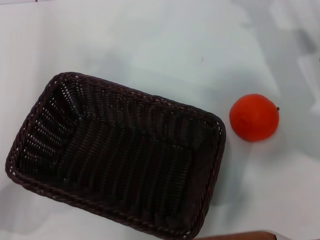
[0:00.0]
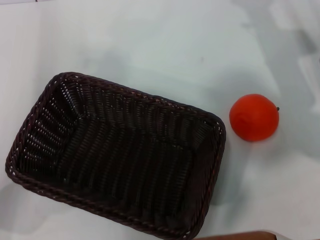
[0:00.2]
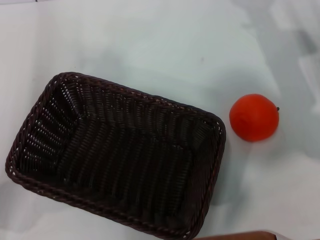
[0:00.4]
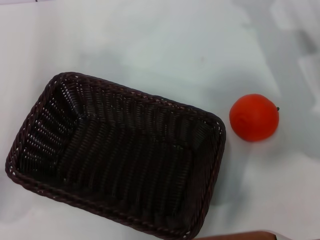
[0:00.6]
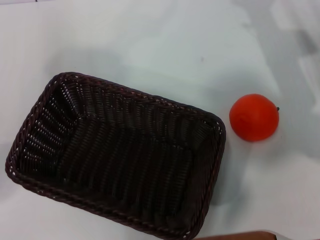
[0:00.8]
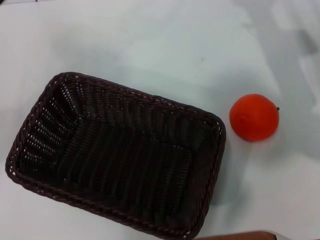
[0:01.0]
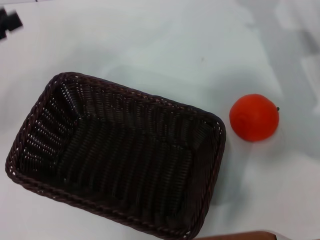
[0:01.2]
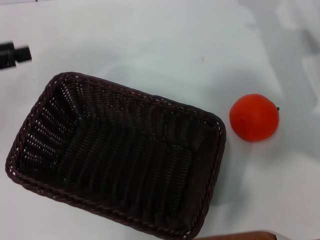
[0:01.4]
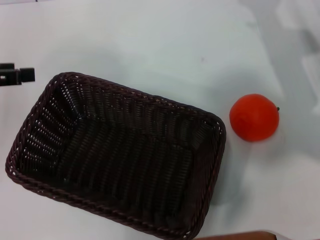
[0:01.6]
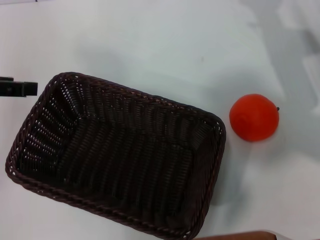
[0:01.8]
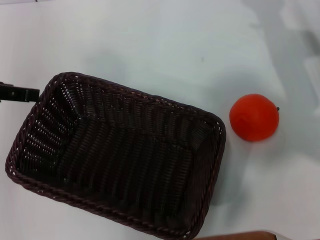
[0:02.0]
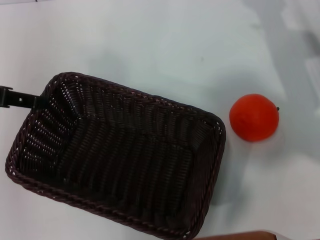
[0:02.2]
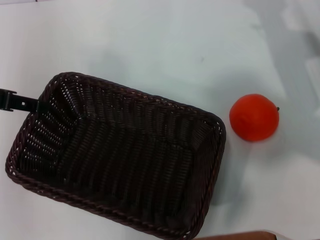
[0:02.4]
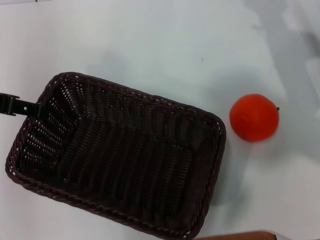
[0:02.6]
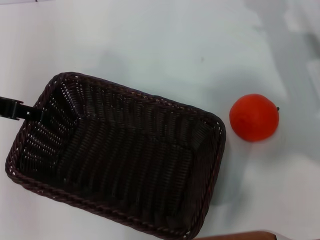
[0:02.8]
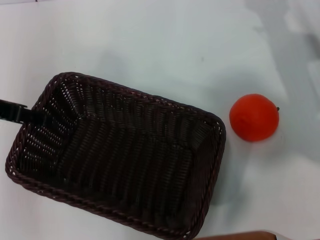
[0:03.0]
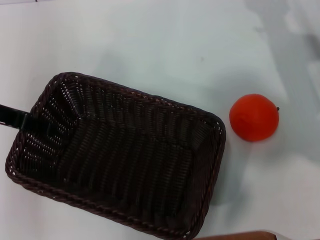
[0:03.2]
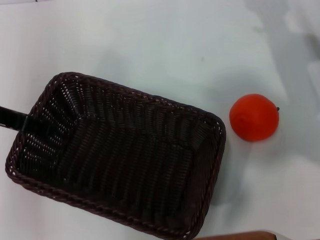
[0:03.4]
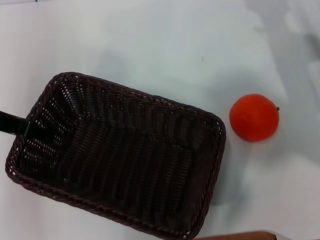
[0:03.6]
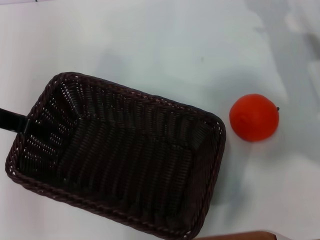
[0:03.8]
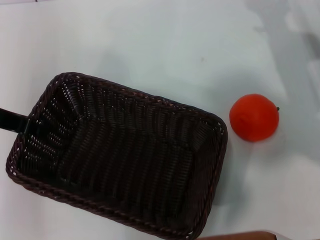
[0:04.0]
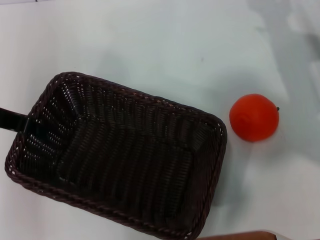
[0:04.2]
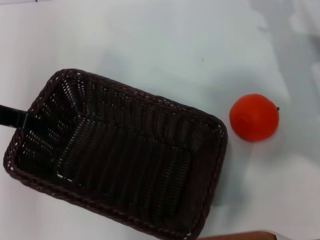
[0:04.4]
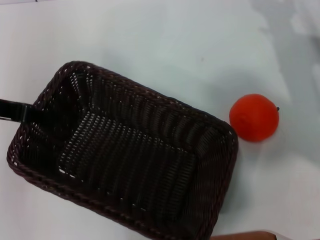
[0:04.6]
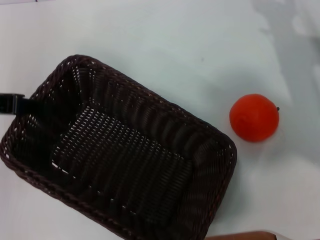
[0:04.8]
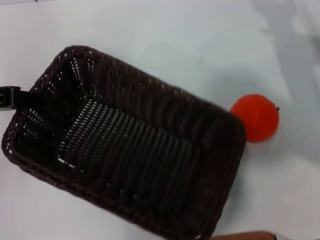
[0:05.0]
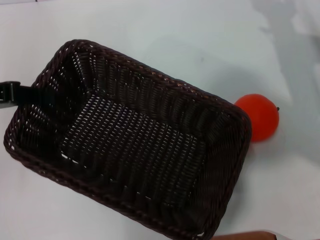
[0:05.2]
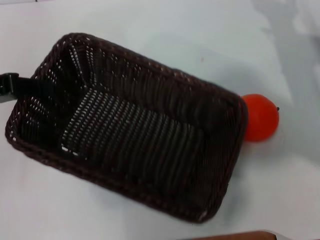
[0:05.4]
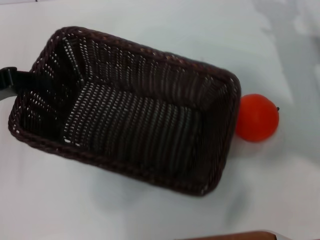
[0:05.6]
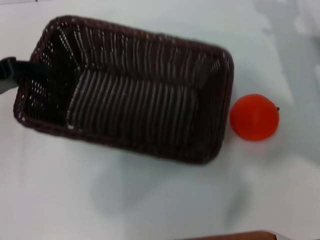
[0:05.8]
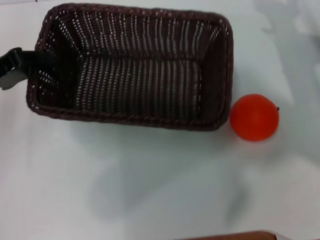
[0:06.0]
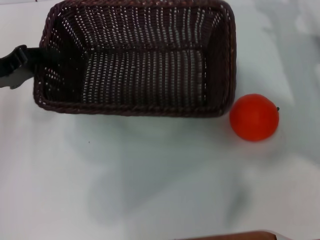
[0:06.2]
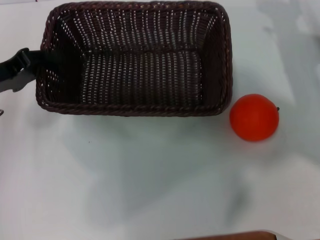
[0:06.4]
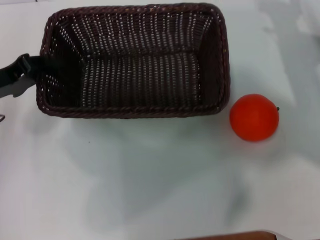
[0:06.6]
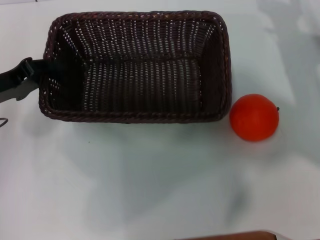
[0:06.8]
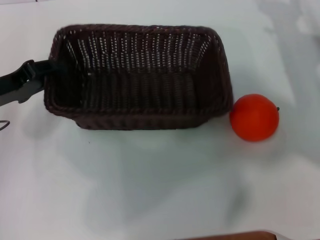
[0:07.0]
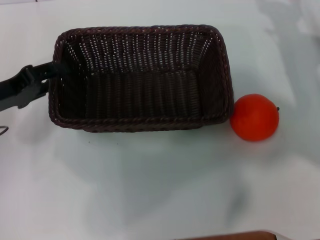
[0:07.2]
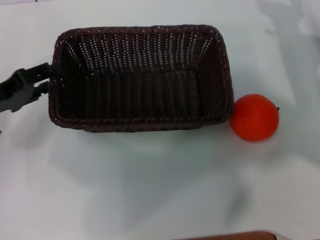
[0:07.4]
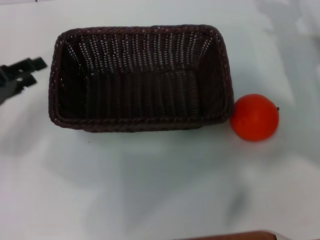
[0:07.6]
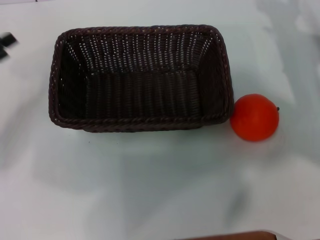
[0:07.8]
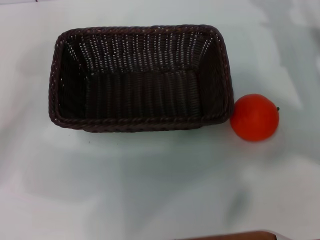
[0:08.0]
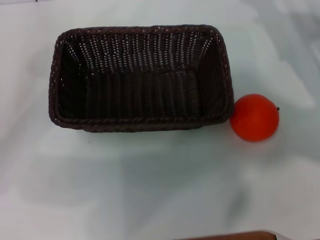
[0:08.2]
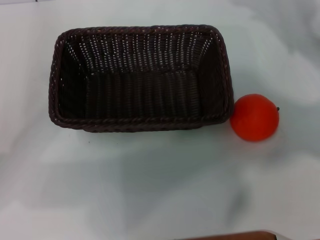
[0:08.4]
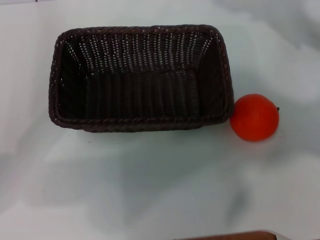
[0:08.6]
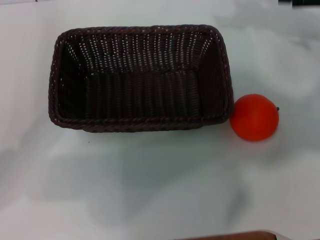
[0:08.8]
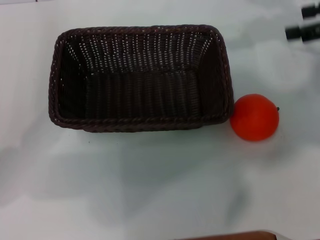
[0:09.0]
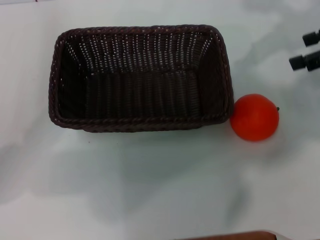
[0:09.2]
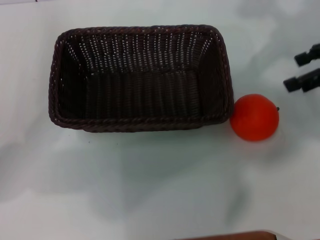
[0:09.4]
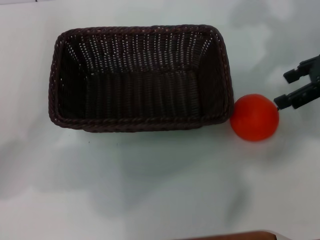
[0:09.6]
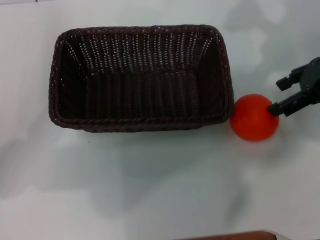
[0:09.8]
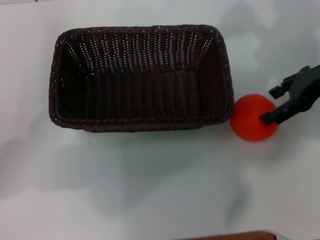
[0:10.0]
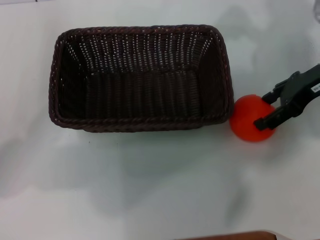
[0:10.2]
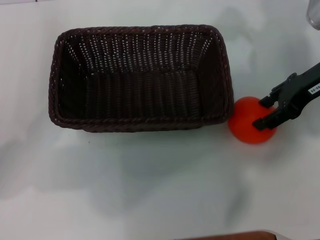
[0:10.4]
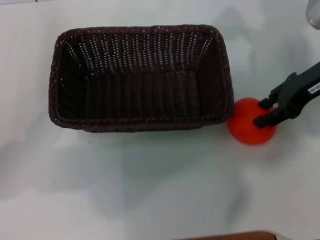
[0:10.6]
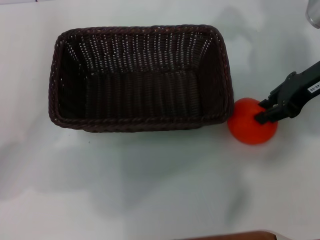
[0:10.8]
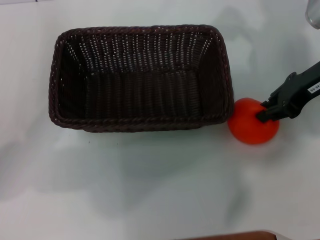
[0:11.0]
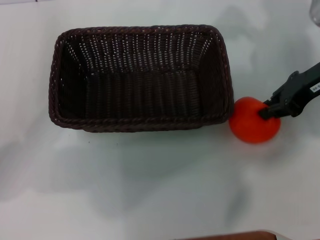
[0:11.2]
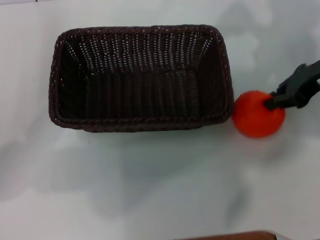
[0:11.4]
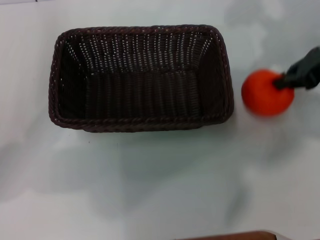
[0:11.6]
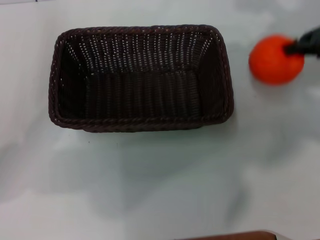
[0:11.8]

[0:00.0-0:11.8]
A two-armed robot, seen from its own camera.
Task of the whole recording: the left gripper pick up the black basket and place it horizontally in the middle of the table, the right gripper pick up the orange and place it into the black basket.
Step, 0:00.0 to 0:05.2: Pick up the dark basket with the left gripper.
Step, 0:05.4 to 0:07.4: Place the dark basket in the center of view with the left gripper.
Step, 0:07.6 to 0:11.6: Pick up the orange with the right gripper.
0:00.0 to 0:01.4: The left gripper travels upward and to the left by some 10 cm.
0:01.4 to 0:03.0: The left gripper heads to the right, covering approximately 5 cm.
0:03.0 to 0:04.4: The left gripper closes its fingers.
0:04.4 to 0:06.0: The left gripper moves about 5 cm.
0:06.0 to 0:07.4: The left gripper opens.
0:07.4 to 0:08.8: The right gripper shifts approximately 15 cm upward.
0:08.8 to 0:10.4: The right gripper heads to the left and downward, covering about 10 cm.
0:10.4 to 0:11.8: The right gripper heads to the right, covering some 5 cm, and closes its fingers.

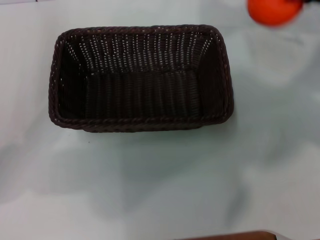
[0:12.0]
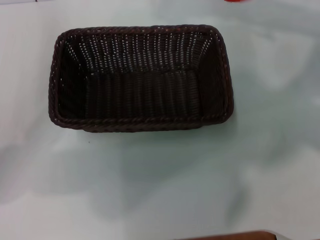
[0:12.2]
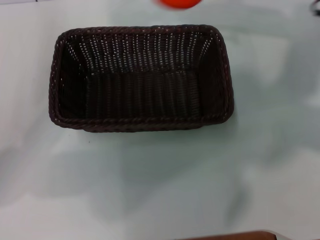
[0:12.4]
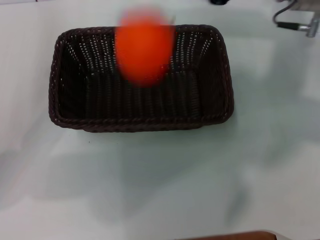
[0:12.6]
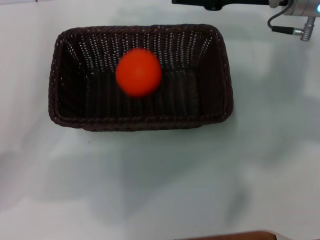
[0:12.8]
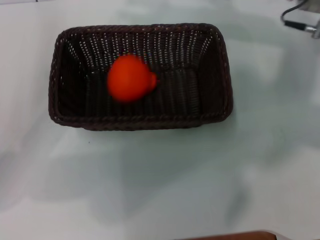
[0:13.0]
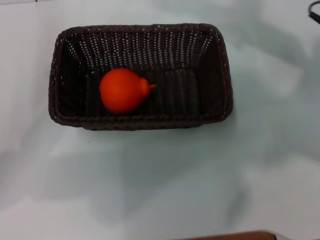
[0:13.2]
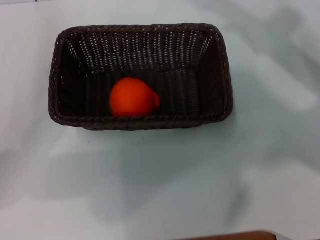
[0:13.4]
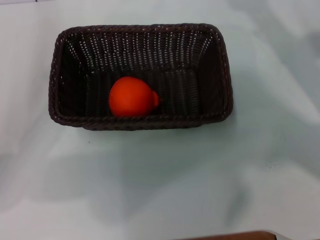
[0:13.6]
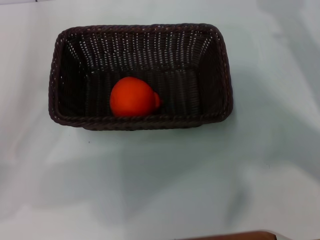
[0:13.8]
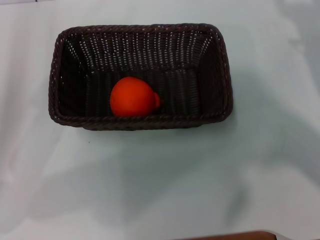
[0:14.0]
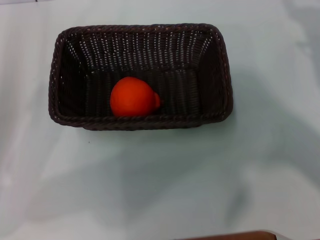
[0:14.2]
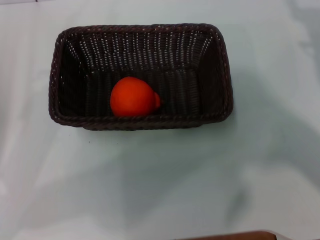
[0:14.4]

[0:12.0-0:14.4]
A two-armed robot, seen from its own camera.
Task of the whole recording: the left gripper pick up the black basket and place it horizontally in the middle of the table, the right gripper pick up the orange and place it into the black basket.
Step, 0:12.0 to 0:12.6: Place the orange into the dark basket with the right gripper.
0:12.0 to 0:13.2: The right gripper moves to the left, roughly 10 cm, and opens its fingers.
0:13.2 to 0:14.4: The right gripper shifts about 15 cm to the right, downward and backward.
